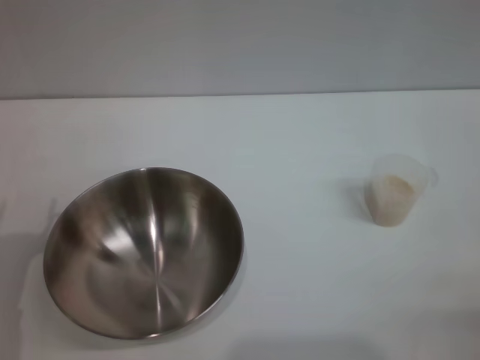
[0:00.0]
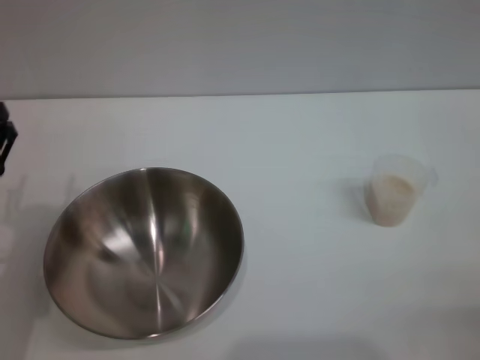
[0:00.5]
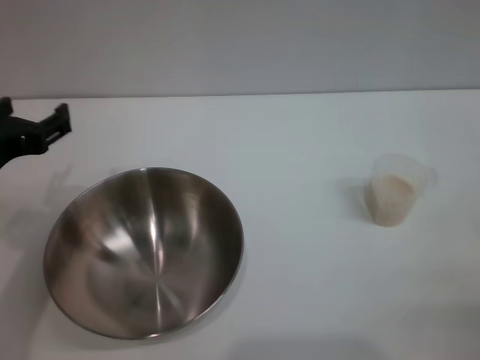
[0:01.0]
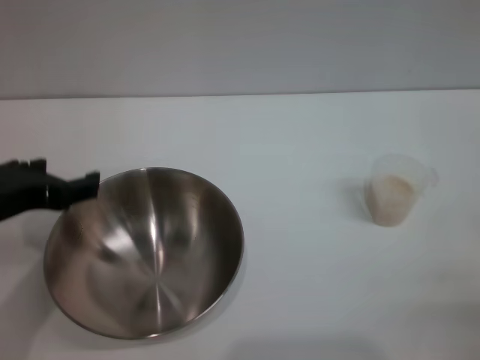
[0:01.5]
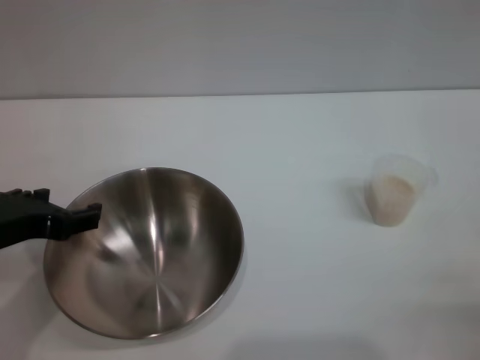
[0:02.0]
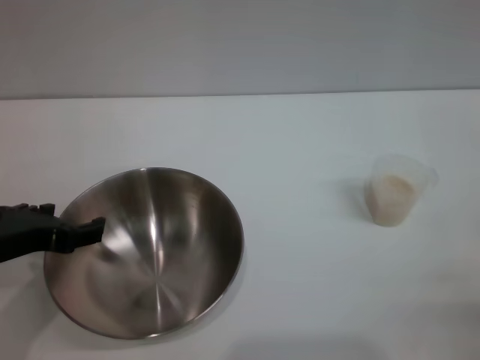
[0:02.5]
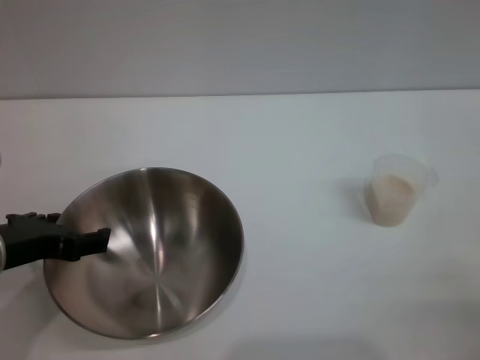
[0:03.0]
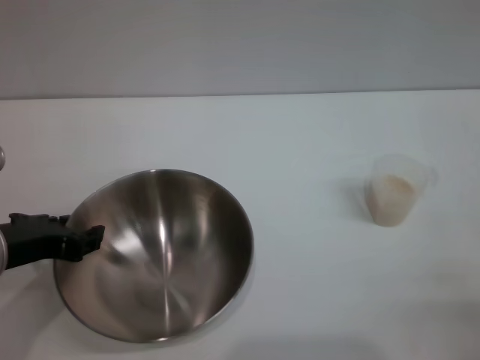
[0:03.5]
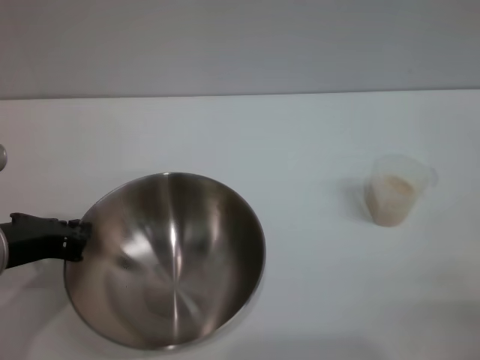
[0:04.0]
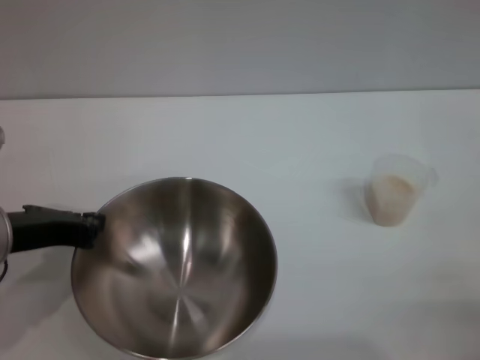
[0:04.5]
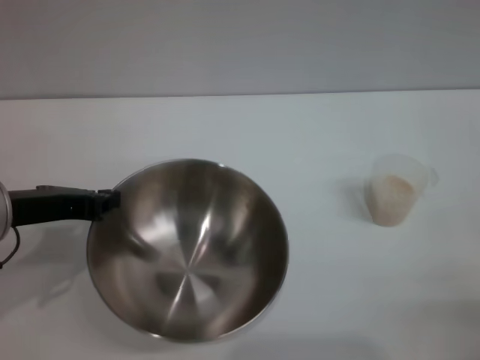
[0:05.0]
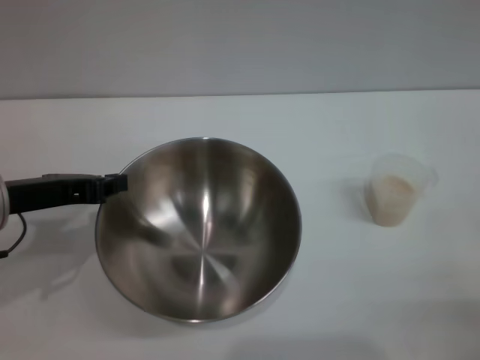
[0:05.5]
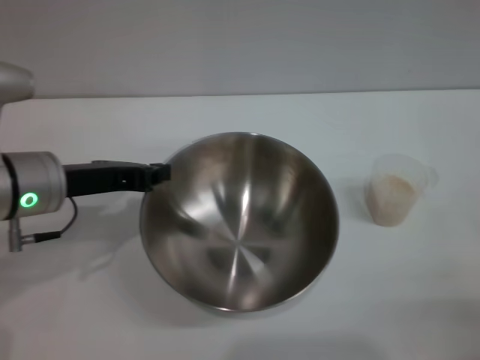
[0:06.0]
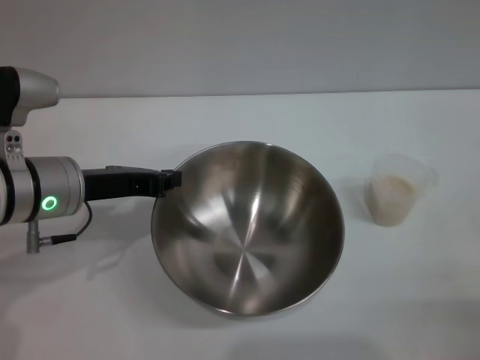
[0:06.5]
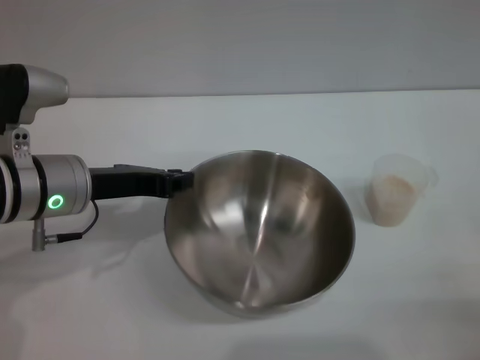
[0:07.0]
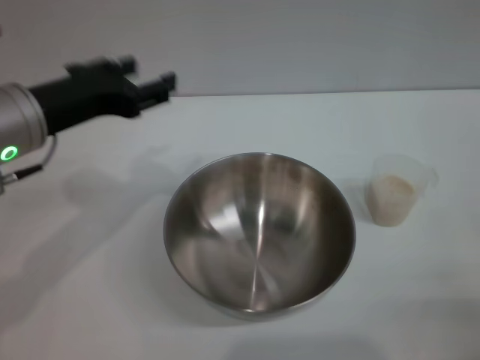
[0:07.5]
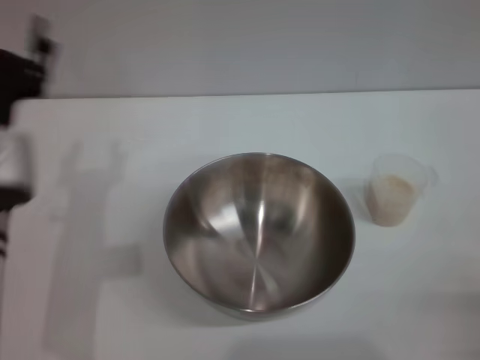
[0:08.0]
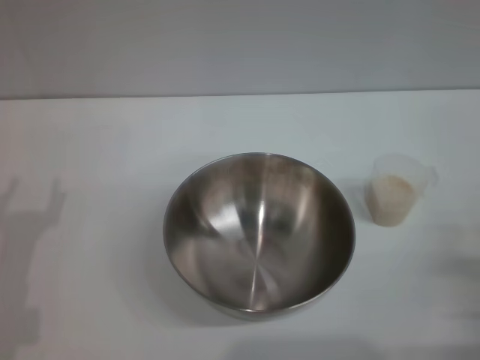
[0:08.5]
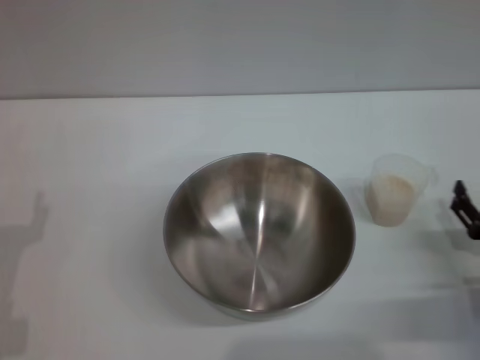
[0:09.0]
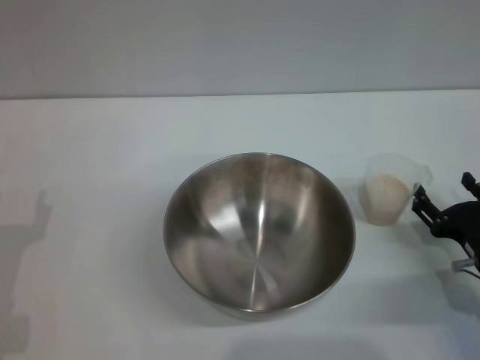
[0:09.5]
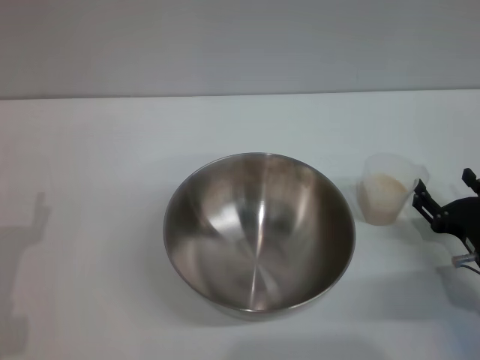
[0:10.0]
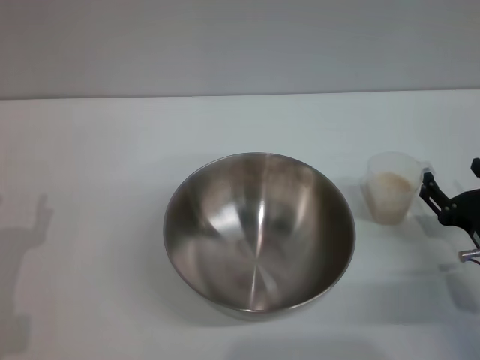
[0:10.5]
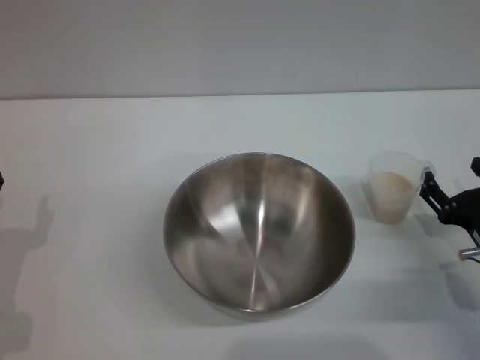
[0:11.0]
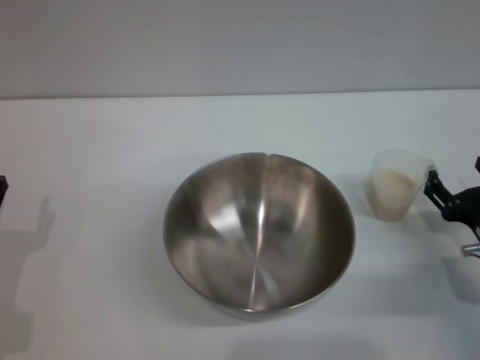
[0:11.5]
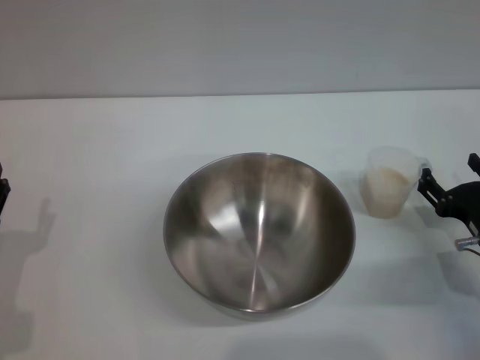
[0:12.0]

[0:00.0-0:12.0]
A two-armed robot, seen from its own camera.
Task of the whole recording: Place the bowl in the middle of the table with one hand and pour the rice from the grain cup into it with the other hand.
Step, 0.0 to 5.0 s: Pick up the bowl with the left gripper.
Step, 5.5 to 7.0 s: Place the bowl in the center of view with the left gripper.
0.0 to 2.0 s: The left gripper heads upward, covering about 15 cm.
2.0 to 4.0 s: The left gripper closes up.
4.0 to 6.0 s: The left gripper moves forward, approximately 5 cm.
6.0 to 8.0 s: The left gripper shifts about 5 cm backward, and opens up.
8.0 to 10.0 s: The right gripper is displaced forward by some 15 cm. The left gripper shifts approximately 15 cm downward and to the left.
10.0 to 12.0 s: The grippers stay close to where they were, moving slightly.

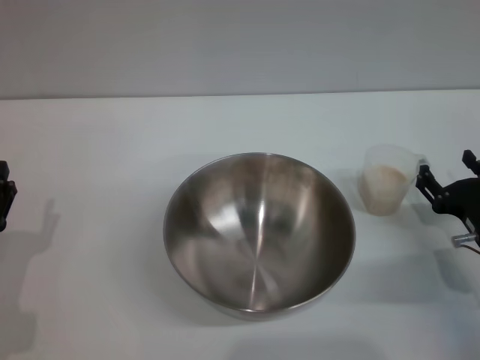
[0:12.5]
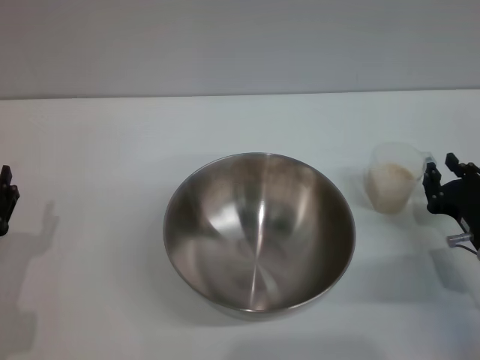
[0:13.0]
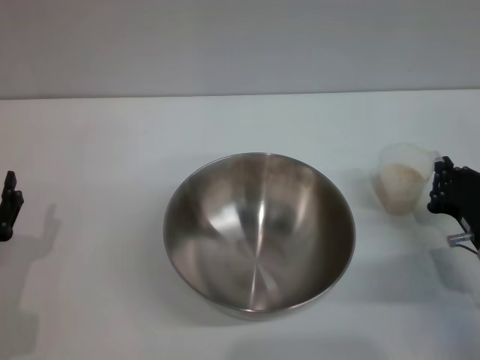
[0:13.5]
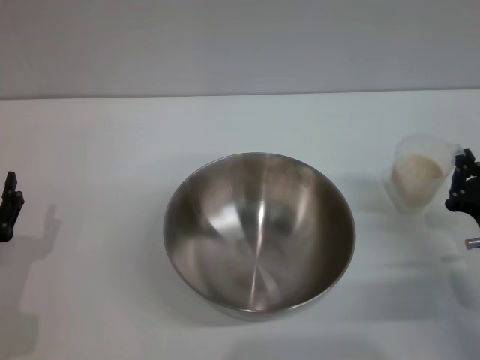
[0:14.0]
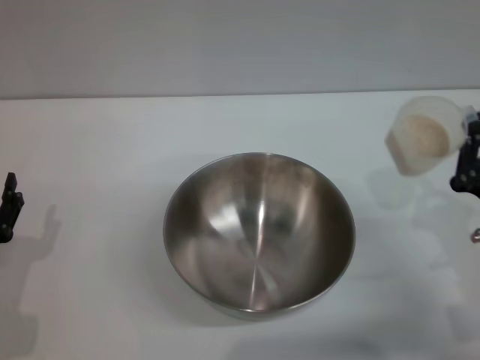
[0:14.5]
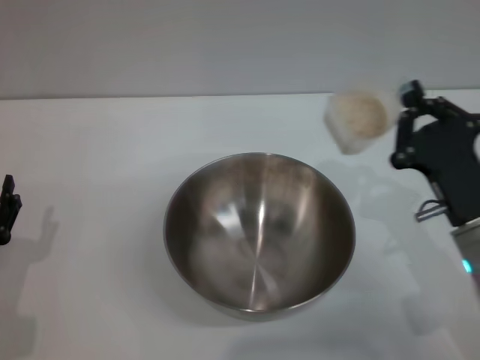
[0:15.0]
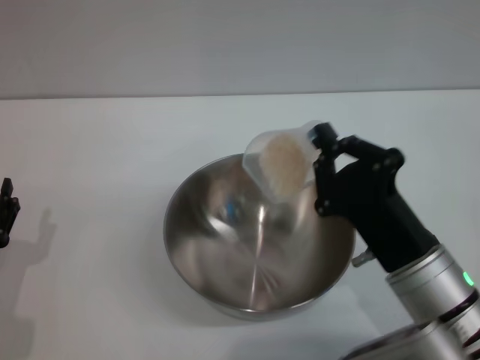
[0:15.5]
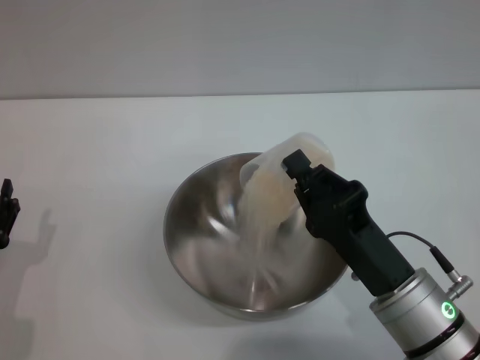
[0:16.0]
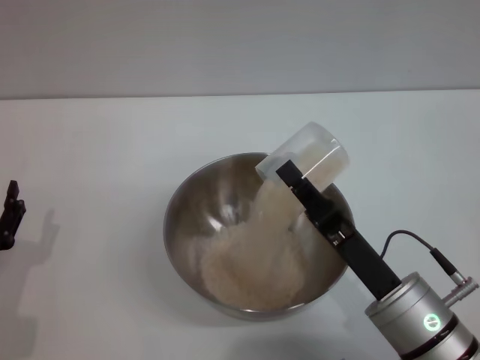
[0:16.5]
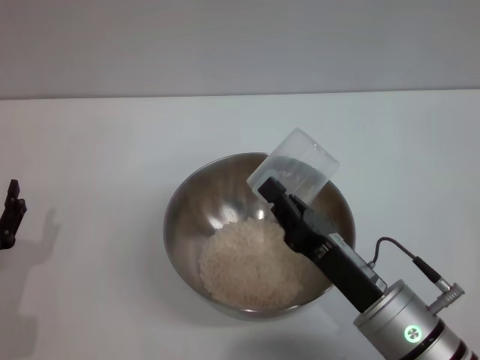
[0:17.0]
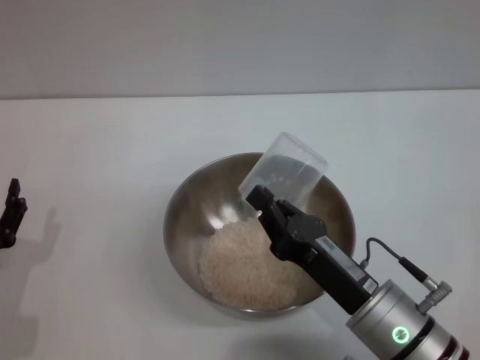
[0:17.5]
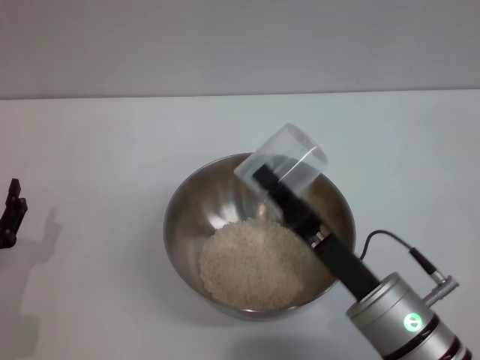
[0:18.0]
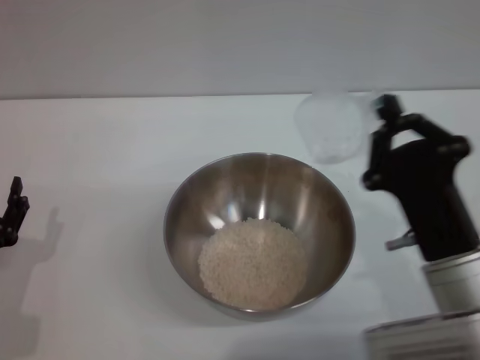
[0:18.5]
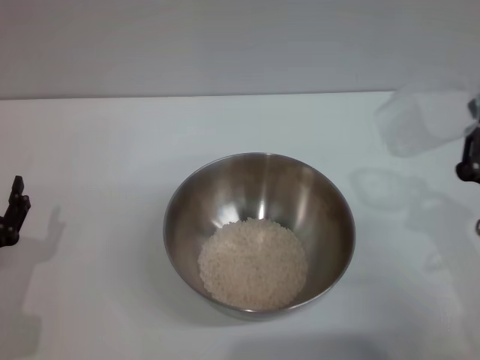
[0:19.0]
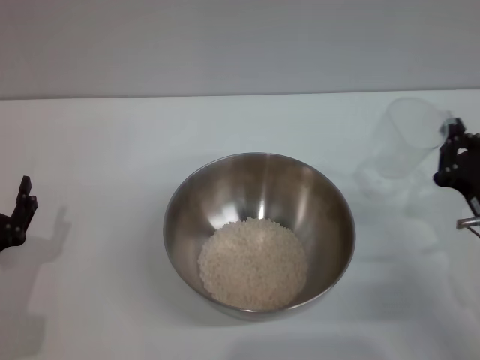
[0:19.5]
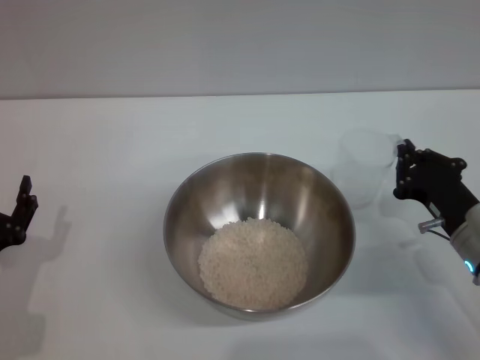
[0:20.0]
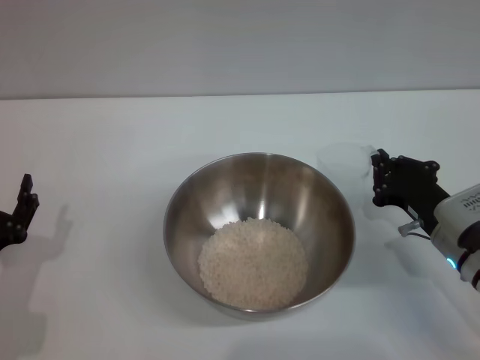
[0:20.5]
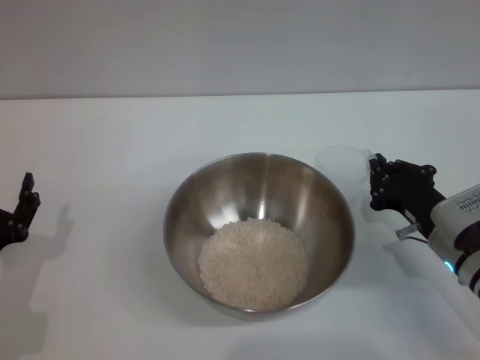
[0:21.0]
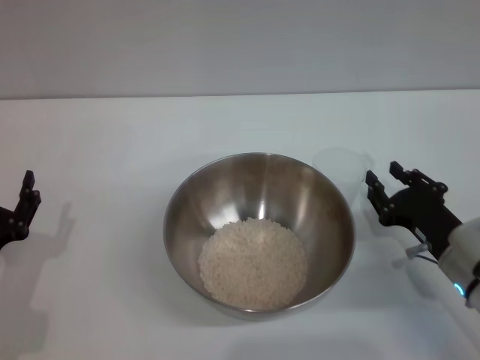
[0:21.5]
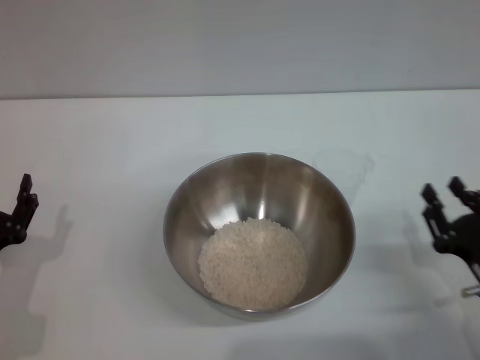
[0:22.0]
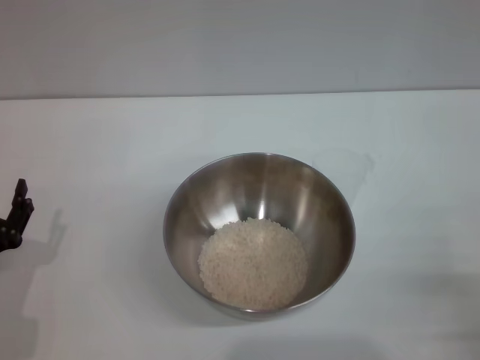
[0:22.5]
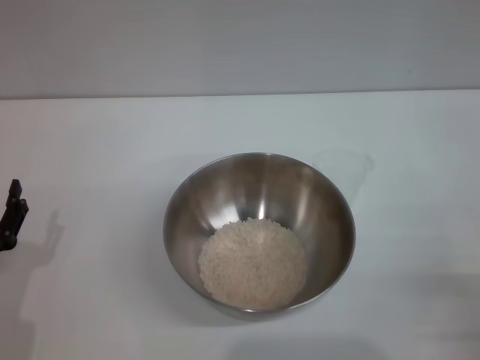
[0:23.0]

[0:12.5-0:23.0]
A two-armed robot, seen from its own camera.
Task of the whole recording: Place the bowl in the middle of the table with one hand and pour the rice from the grain cup into it with the other hand.
Step, 14.0 to 17.0 s: Pour the rice from the cup into the bowl with the right gripper.
Step, 17.5 to 21.5 s: Place the cup on the table with the right gripper.
12.5 to 14.5 s: The right gripper moves roughly 5 cm, and closes up.
14.5 to 16.5 s: The right gripper shifts some 10 cm to the left.
16.5 to 19.0 s: The right gripper travels to the right by some 10 cm.
19.0 to 21.0 s: The right gripper shifts about 5 cm forward.
21.0 to 23.0 s: The right gripper heads backward and to the right, covering roughly 15 cm, and opens its fingers.

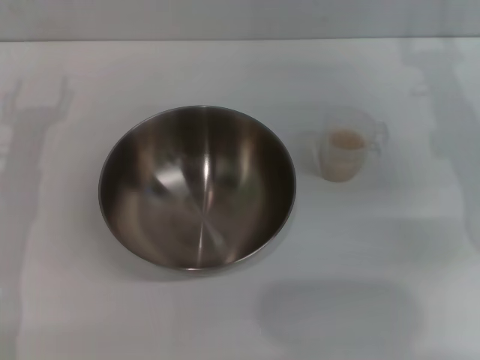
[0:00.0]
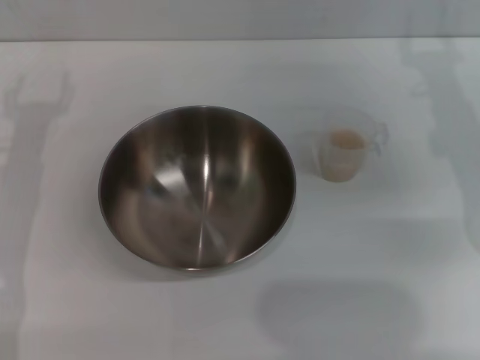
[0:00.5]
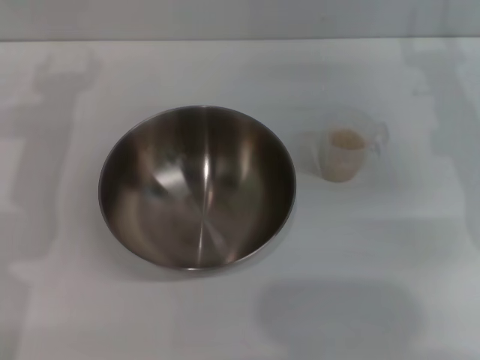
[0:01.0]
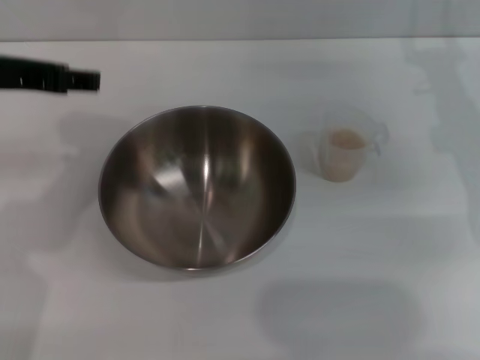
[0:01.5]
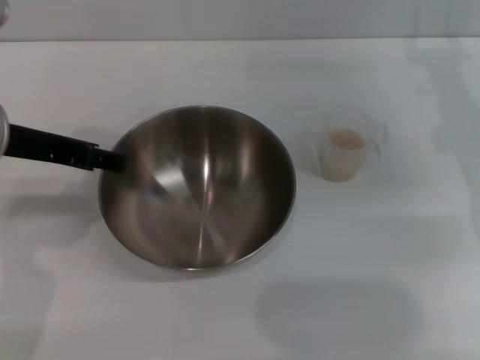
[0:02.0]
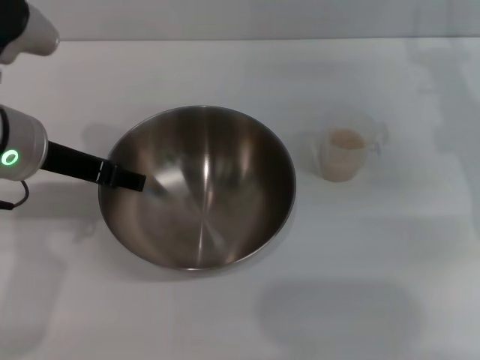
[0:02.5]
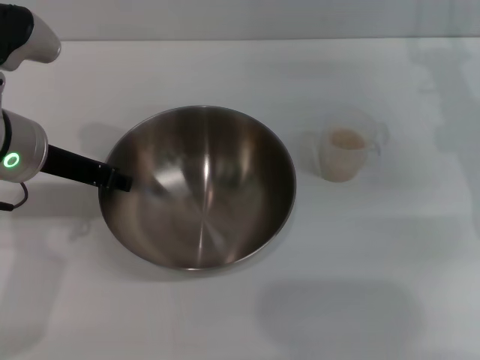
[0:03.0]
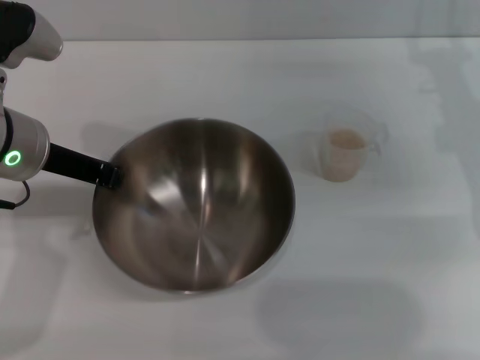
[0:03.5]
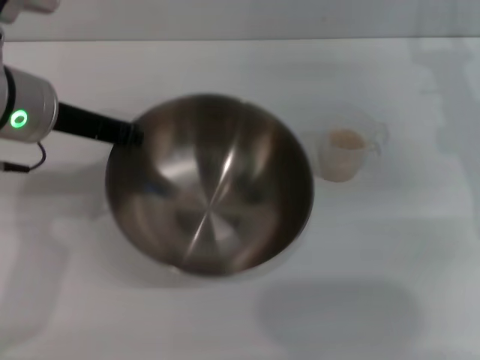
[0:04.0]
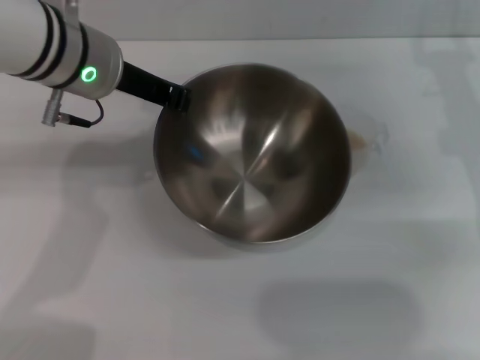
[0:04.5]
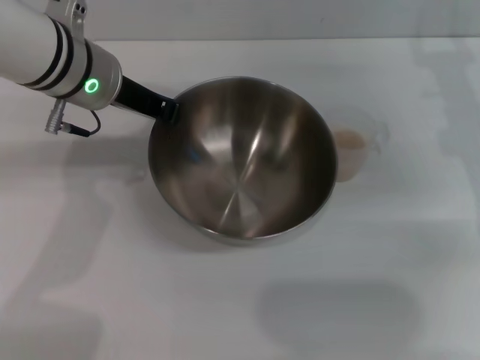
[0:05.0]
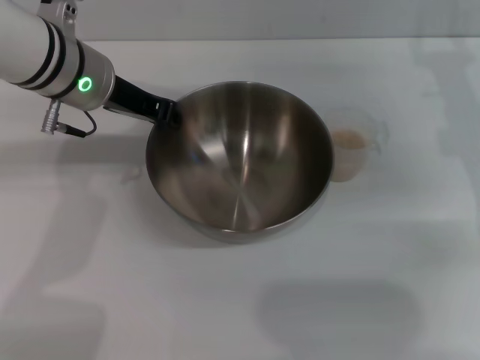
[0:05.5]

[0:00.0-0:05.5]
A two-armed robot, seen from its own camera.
Task of the whole recording: Place the bowl in the middle of the table with one hand and pour the rice from the grain cup into it with the other hand.
Step, 0.0 to 4.0 s: Pick up the bowl with the left gripper.
0.0 to 2.0 s: The left gripper goes approximately 15 cm upward and to the right.
2.0 to 3.5 s: The left gripper ends up roughly 5 cm from where it was, and closes its fingers.
3.5 to 5.5 s: The left gripper moves forward, roughly 5 cm.
